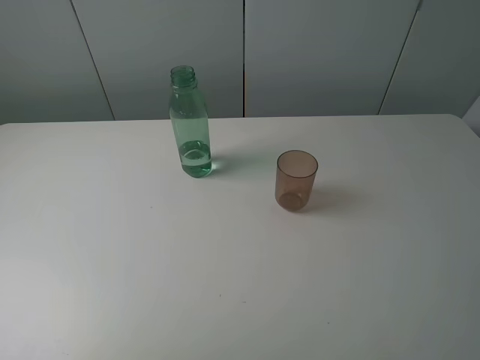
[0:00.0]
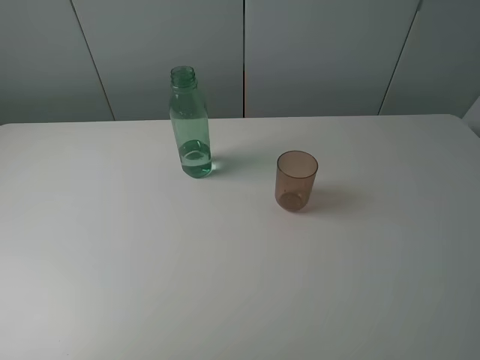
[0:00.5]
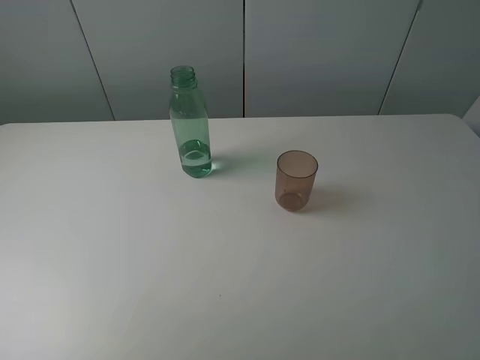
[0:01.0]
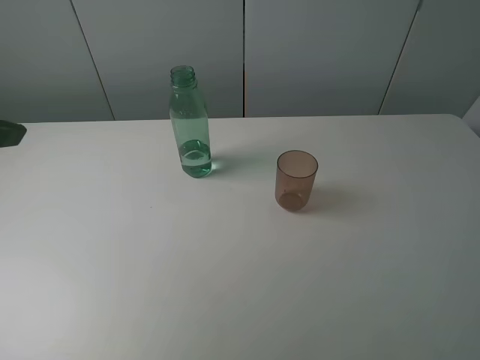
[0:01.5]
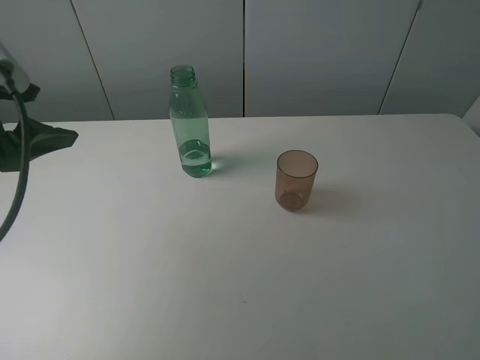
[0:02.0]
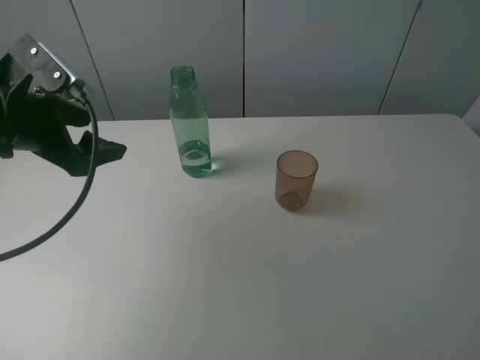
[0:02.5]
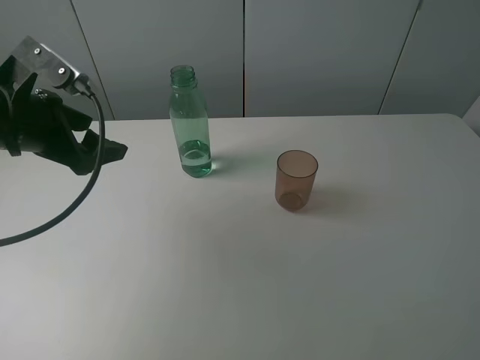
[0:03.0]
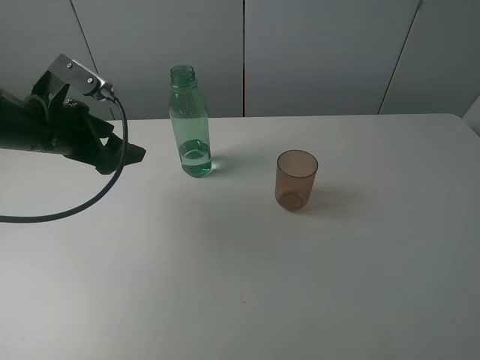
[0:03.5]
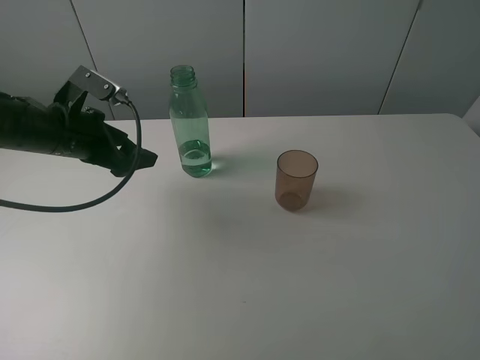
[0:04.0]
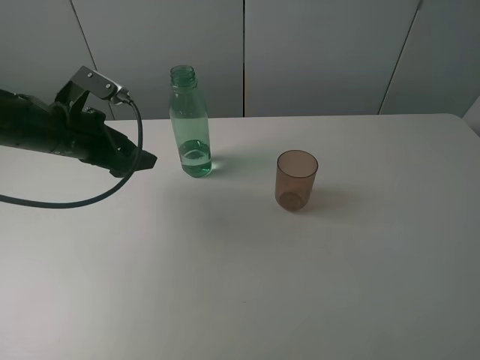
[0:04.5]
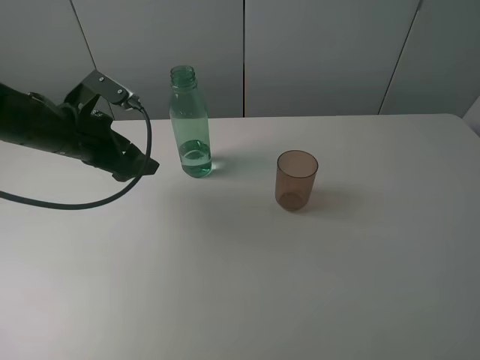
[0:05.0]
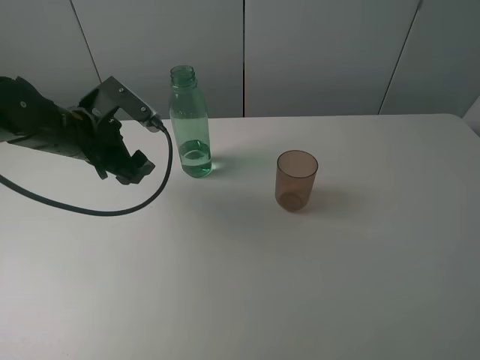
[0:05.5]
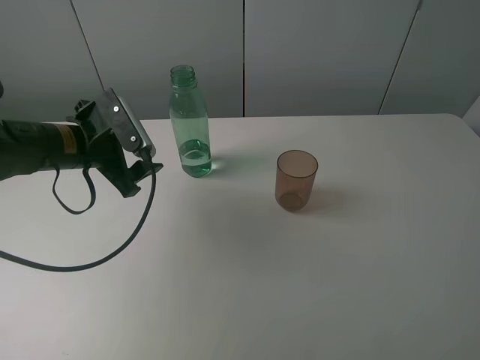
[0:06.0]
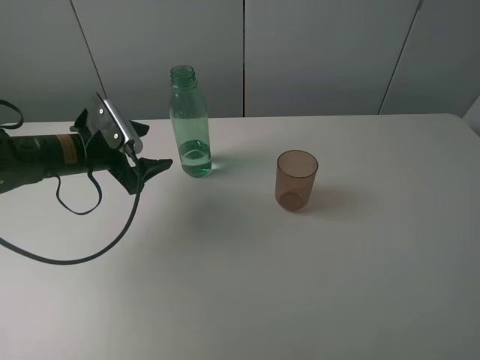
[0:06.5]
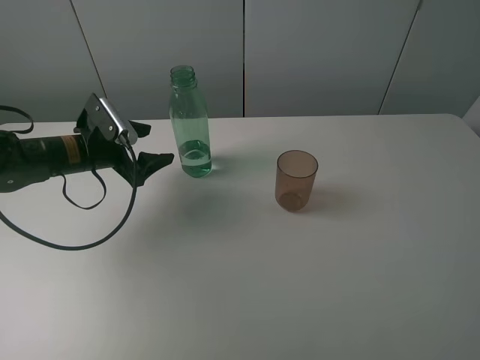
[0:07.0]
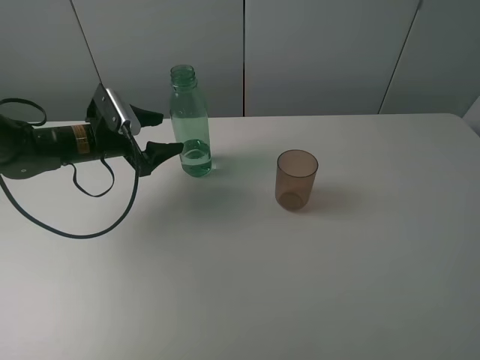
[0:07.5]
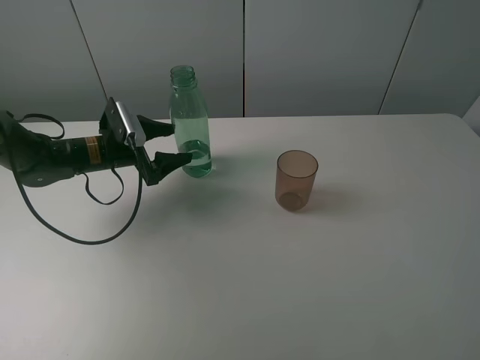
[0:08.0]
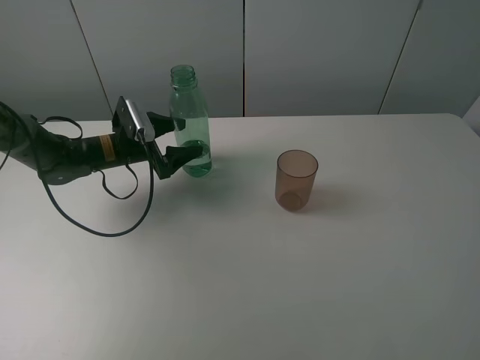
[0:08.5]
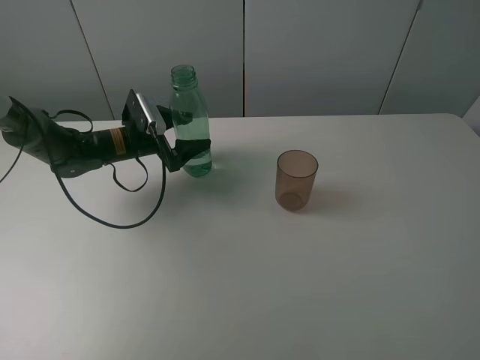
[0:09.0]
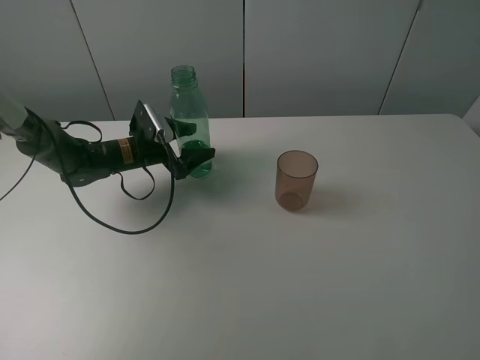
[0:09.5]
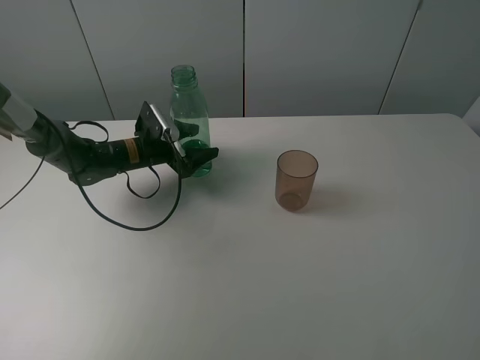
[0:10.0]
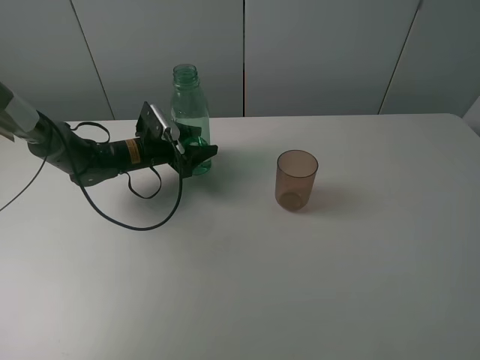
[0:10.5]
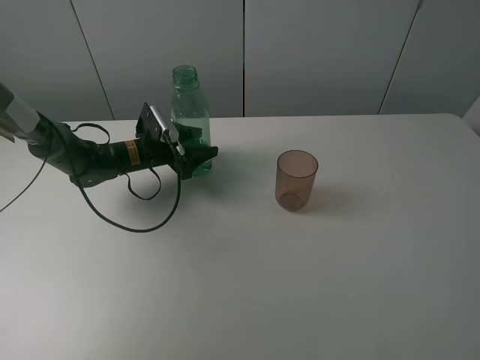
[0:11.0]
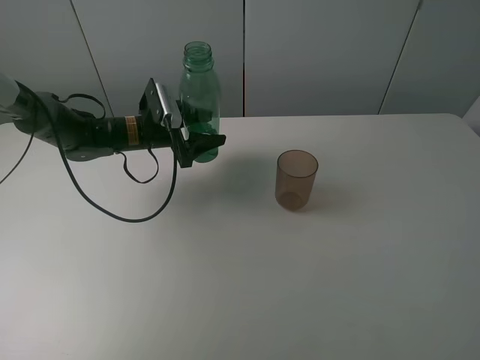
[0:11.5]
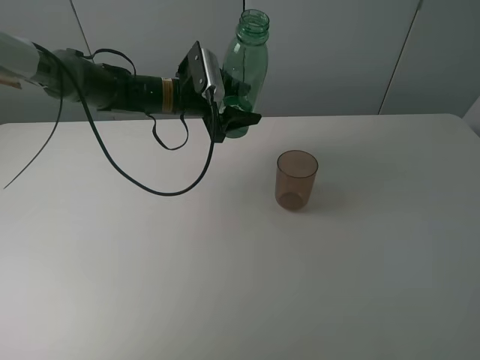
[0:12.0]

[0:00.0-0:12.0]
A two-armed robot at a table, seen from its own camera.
Task of the whole recording: pick up the bottle filled with water and pour it into the pink cup.
Step, 0:00.0 to 0:10.5: Grasp the green bottle with the left gripper.
0:00.0 to 0:02.0: The left gripper moves forward, roughly 25 cm.
0:02.0 to 0:04.0: The left gripper shifts some 15 cm downward and forward.
0:06.0 to 0:08.0: The left gripper goes about 10 cm forward and downward.
0:08.0 to 0:10.0: The left gripper changes place by approximately 5 cm.
0:10.0 to 0:12.0: The left gripper is displaced upward and to the right by roughly 15 cm, and closes up.

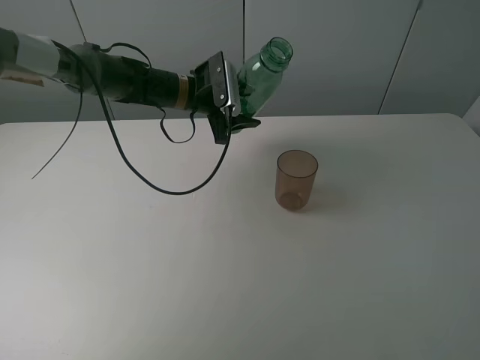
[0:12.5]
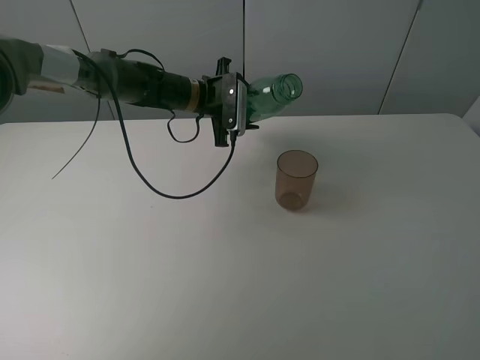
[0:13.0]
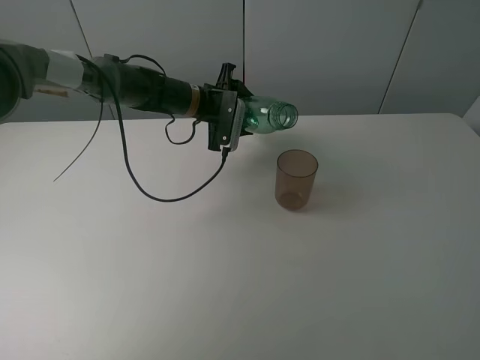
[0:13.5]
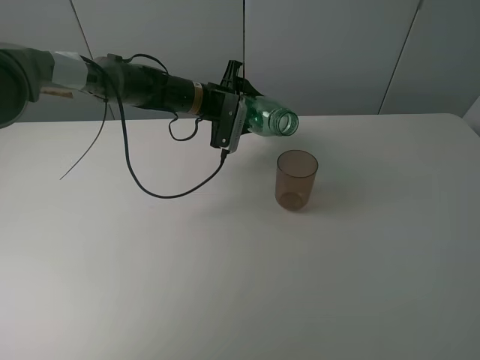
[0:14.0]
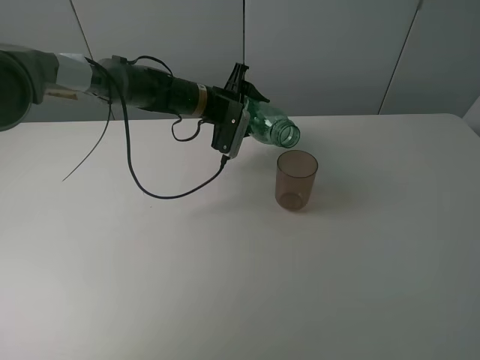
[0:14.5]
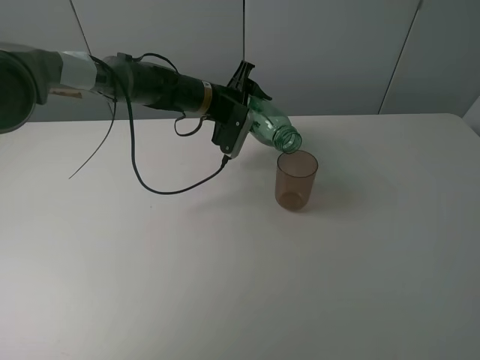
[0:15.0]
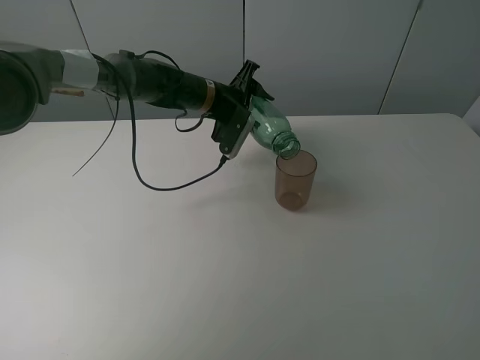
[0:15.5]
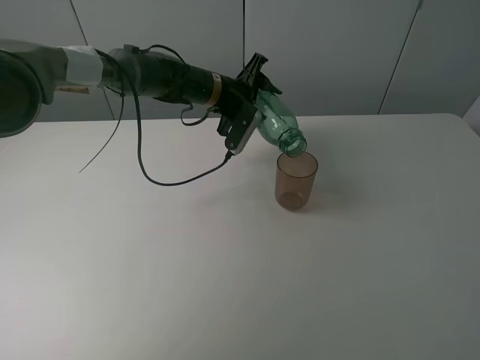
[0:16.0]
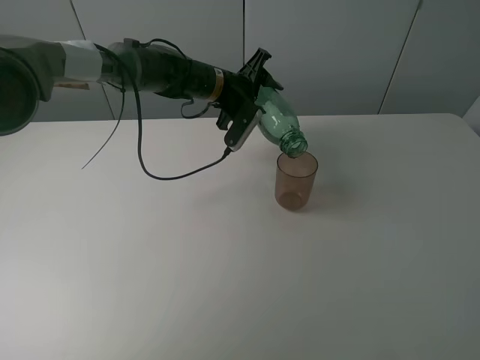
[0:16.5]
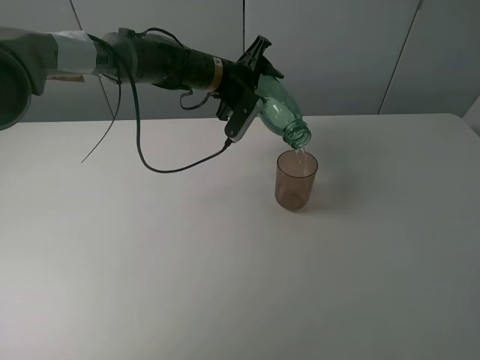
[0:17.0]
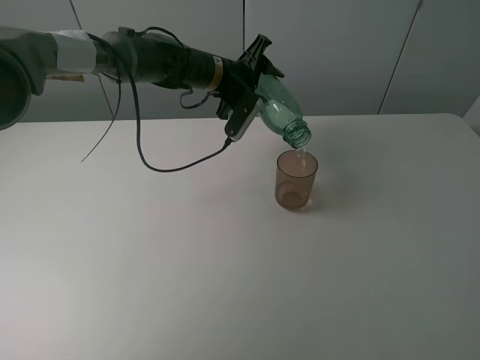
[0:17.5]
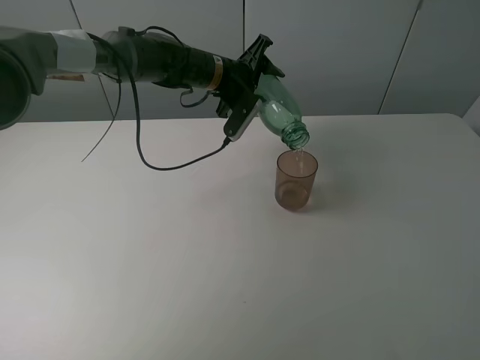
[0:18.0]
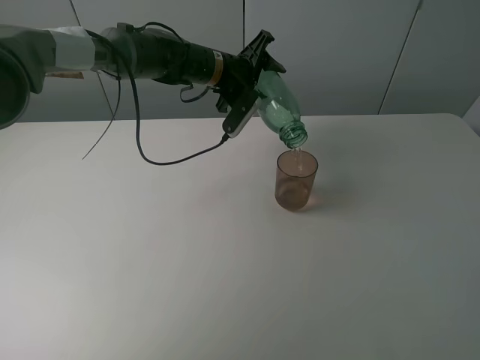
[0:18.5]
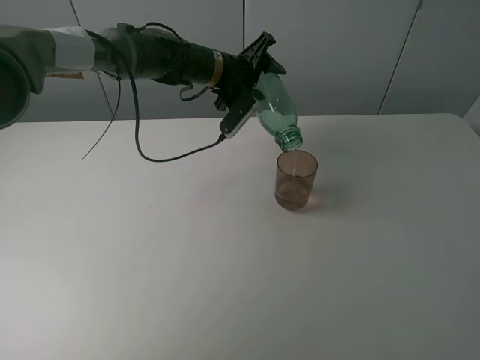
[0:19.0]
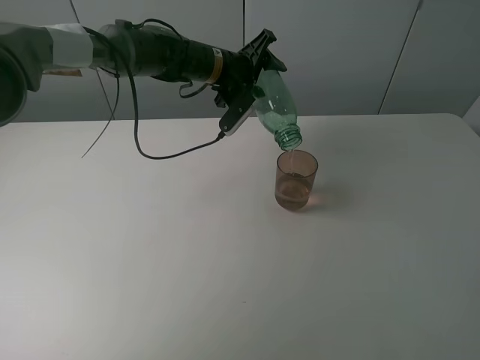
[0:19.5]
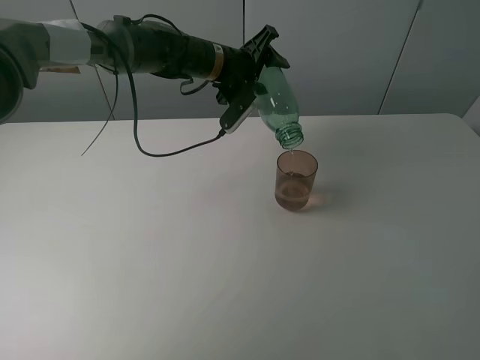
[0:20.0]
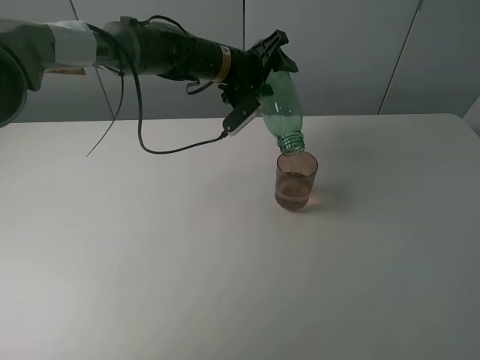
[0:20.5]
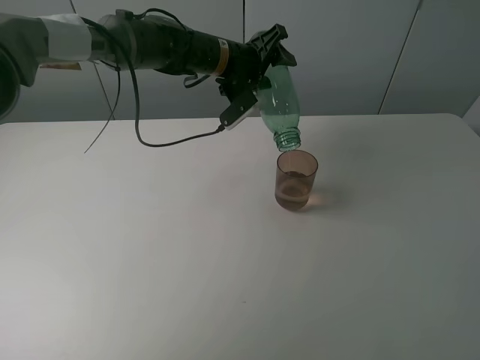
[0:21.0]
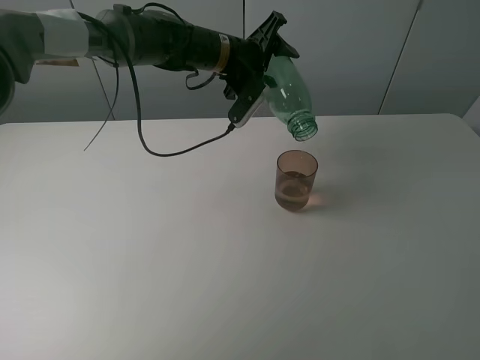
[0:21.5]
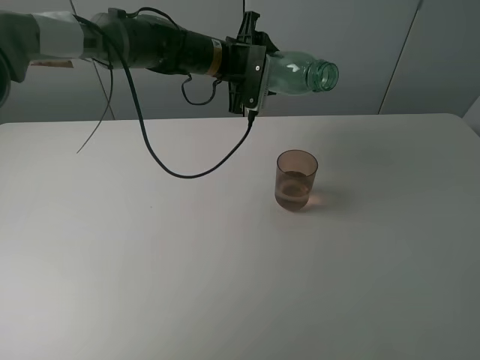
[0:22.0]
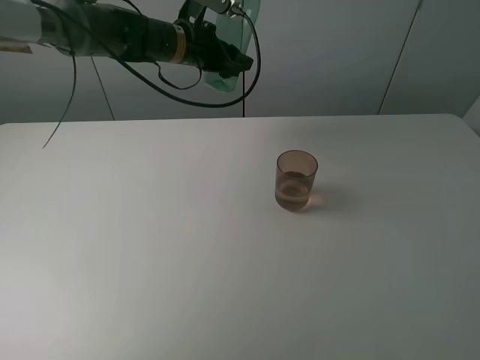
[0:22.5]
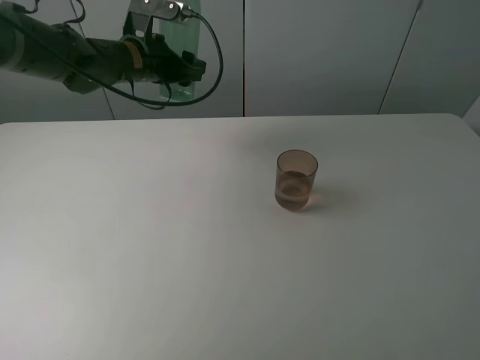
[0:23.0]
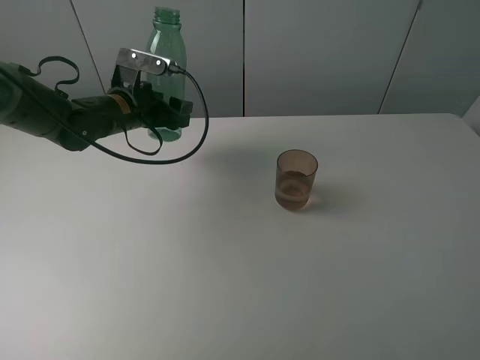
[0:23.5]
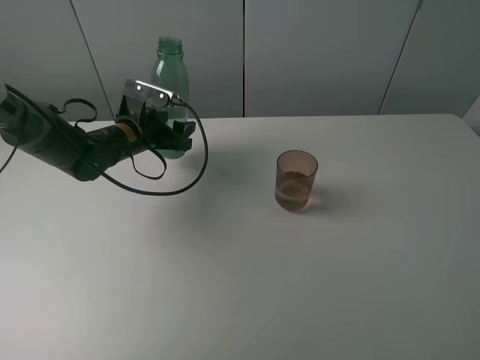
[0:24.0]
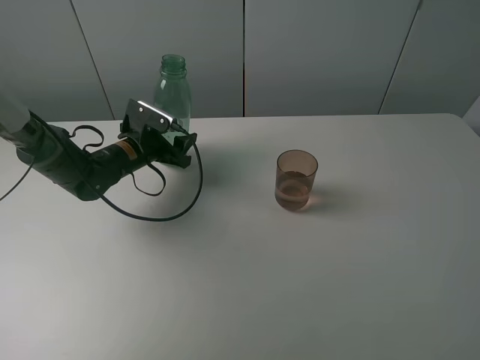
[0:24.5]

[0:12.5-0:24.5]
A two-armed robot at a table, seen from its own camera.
Task of the whole recording: pick up the bottle filled with water and pour it into the pink cup.
Step, 0:12.5 to 0:21.5: Pour water from green bottle to pink cup with the left gripper.
0:14.5 to 0:16.5: The grippers make only small movements.
0:16.5 to 0:18.5: There are only small adjustments of the grippers.
0:18.5 to 0:20.5: There are only small adjustments of the grippers.
0:20.5 to 0:22.5: The left gripper goes some 10 cm to the left.
0:22.5 to 0:24.5: The left gripper travels downward, to the left and backward by about 20 cm.

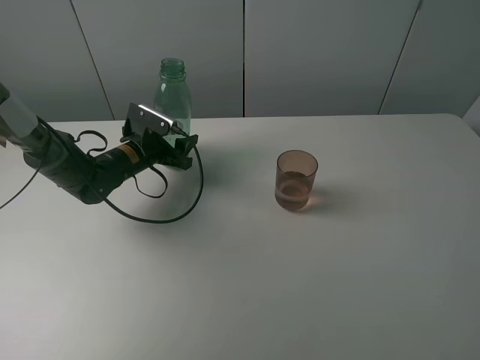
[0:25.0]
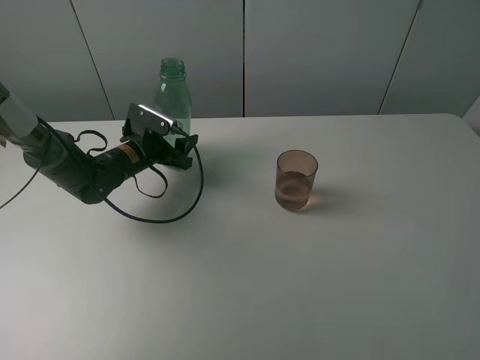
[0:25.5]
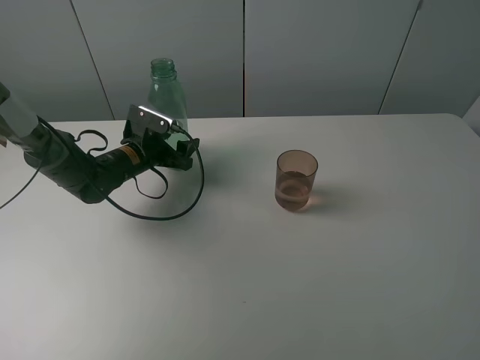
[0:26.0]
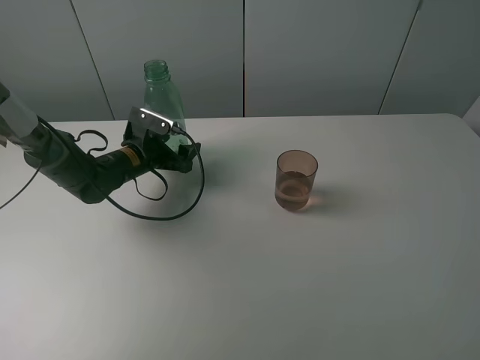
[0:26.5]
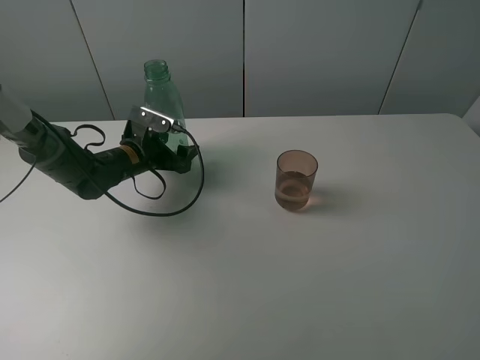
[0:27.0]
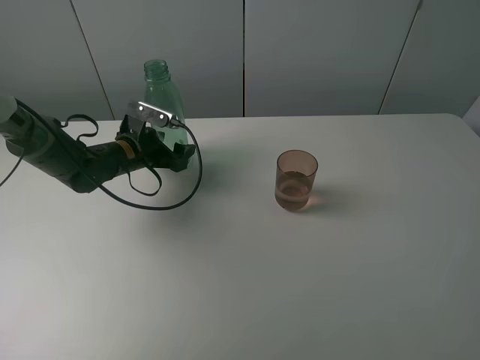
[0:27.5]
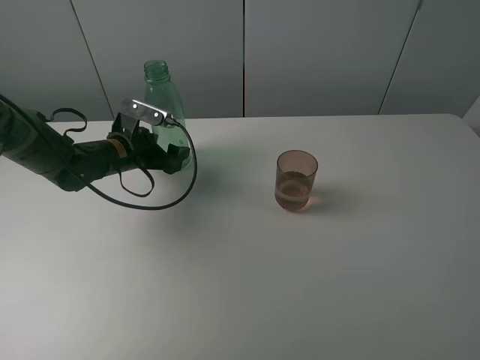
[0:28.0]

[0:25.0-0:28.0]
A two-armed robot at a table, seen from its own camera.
Task of the whole recording: pick up the bottle filled with water and pour it into the pink cup.
0:25.0 to 0:26.5: The left gripper opens its fingers.
0:26.5 to 0:28.0: There are only small adjustments of the grippers.
